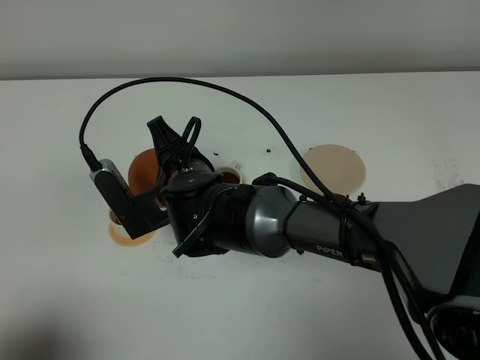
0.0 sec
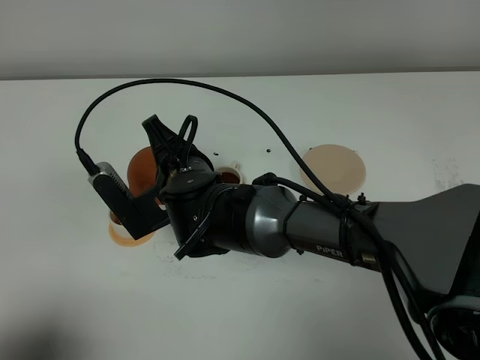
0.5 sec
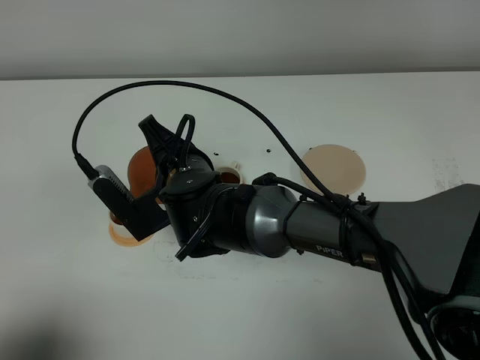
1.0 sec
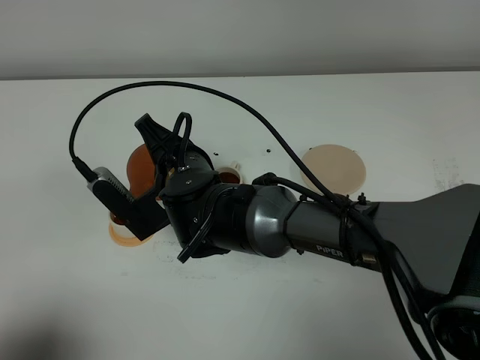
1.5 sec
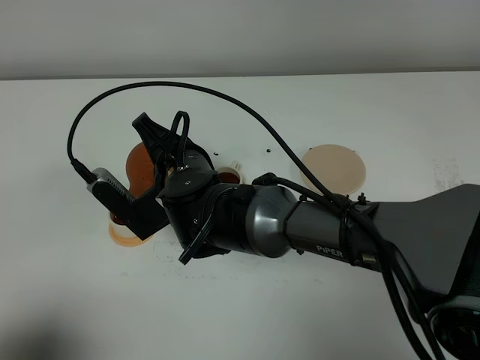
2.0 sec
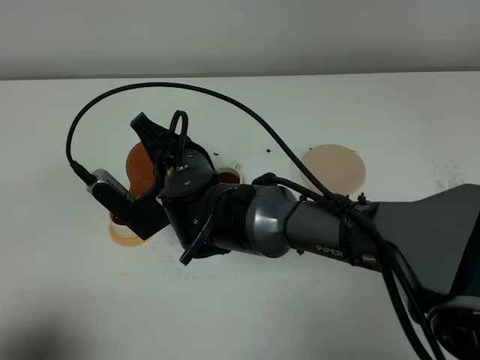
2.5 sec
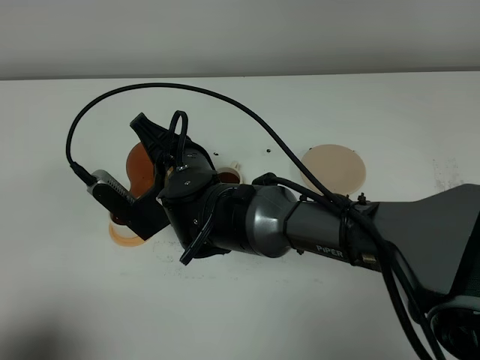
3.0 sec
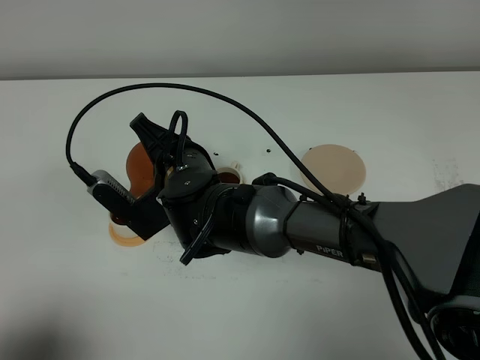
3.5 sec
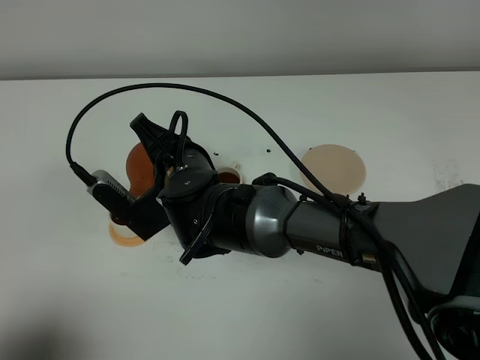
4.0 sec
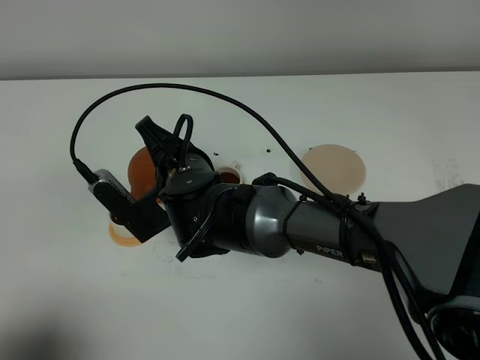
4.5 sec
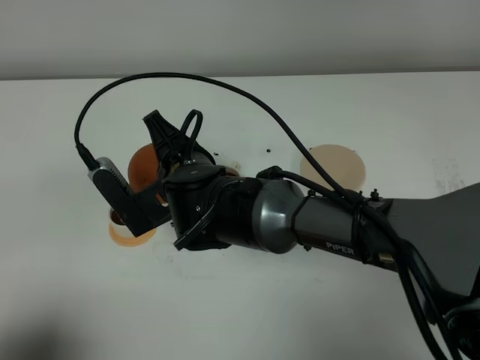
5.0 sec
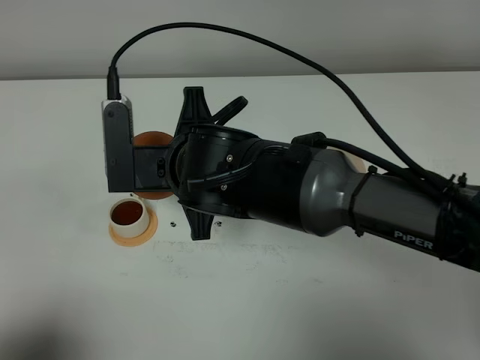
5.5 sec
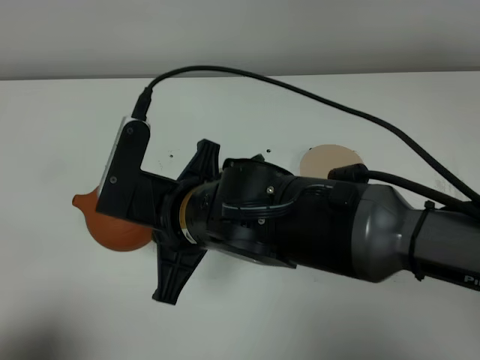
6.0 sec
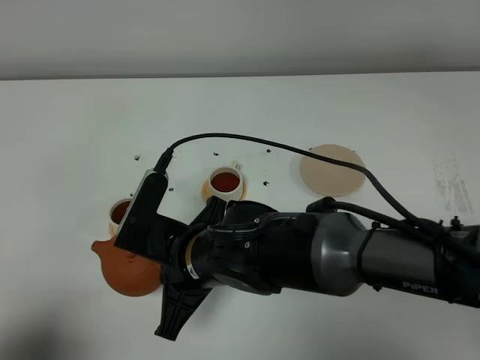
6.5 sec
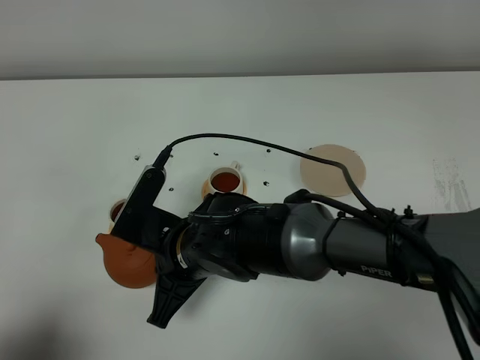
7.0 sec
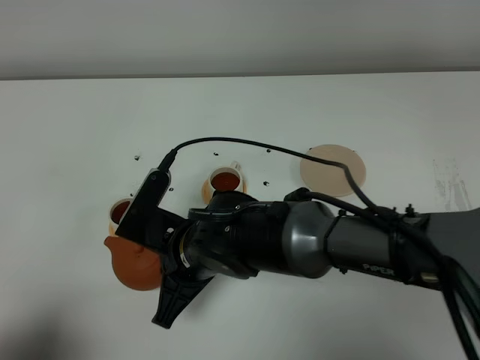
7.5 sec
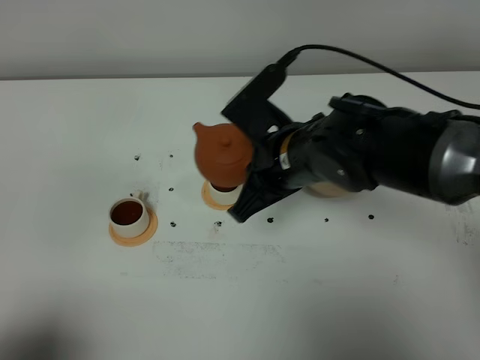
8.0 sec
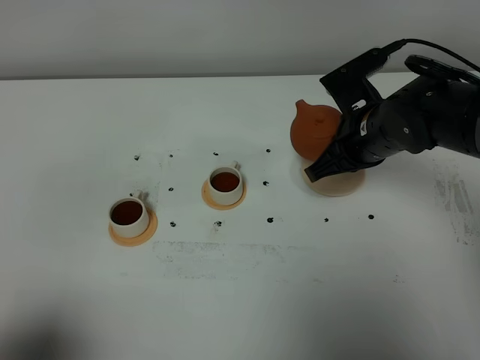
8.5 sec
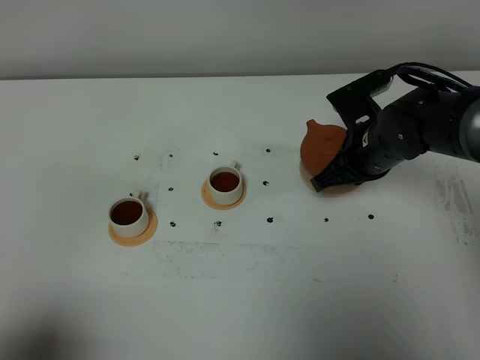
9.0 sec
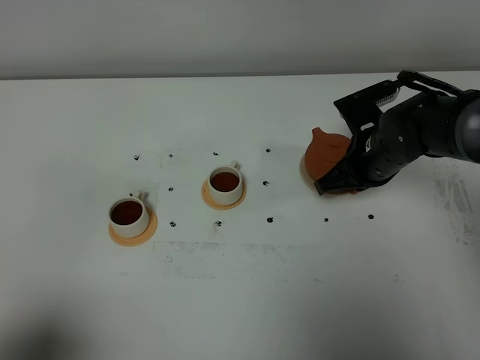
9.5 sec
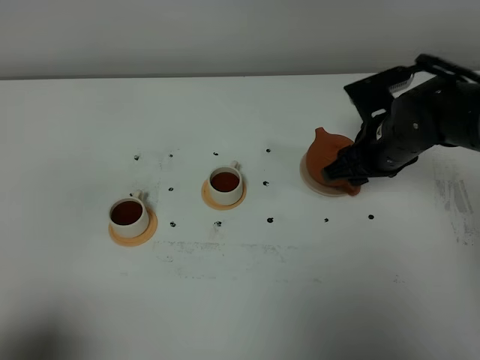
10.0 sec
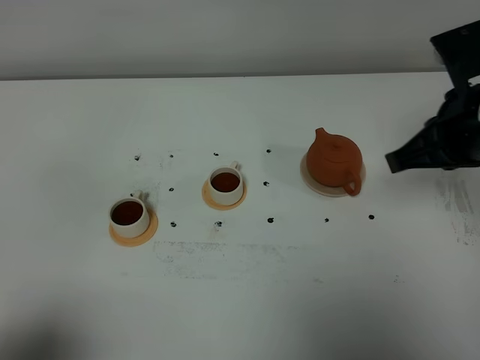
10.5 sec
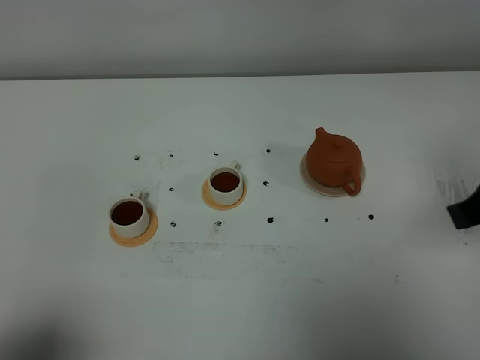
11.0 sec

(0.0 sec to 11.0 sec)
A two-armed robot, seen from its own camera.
Task of the whole recording: grasp the brown teapot and pour the tea into the two white teacups one by one, put the brown teapot back in its original place.
Step, 0.0 sec - 5.0 sec: Pour tea into the teacup with the right gripper.
0.0 sec - 2.0 sec: The grippers make only small movements.
2.0 sec - 3.5 sec: Both grippers stay about where they are.
3.5 sec - 5.5 sec: The right gripper heads upward, covering approximately 5 cm.
5.5 sec - 7.5 sec: The right gripper shifts approximately 10 cm downward.
7.5 sec - 9.0 sec: The right gripper heads to the right and forward, covering about 25 cm.
9.0 sec - 11.0 sec: The right gripper goes approximately 25 cm backward, upward and to the right, and opens, then closes again.
